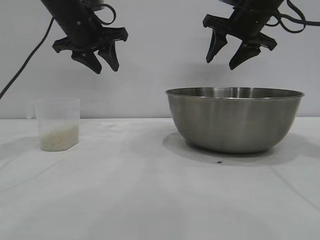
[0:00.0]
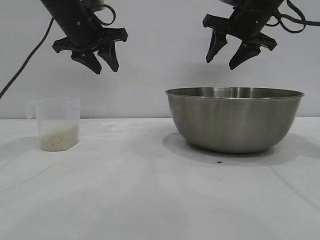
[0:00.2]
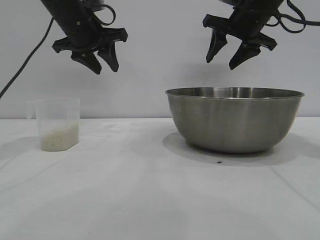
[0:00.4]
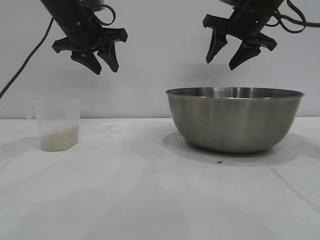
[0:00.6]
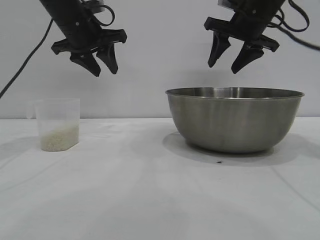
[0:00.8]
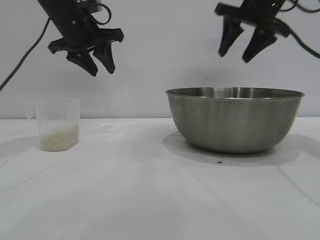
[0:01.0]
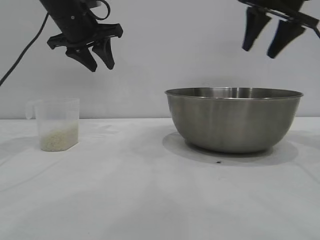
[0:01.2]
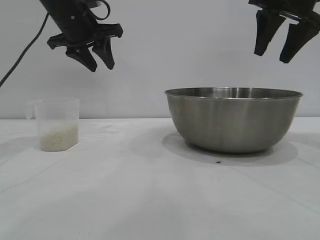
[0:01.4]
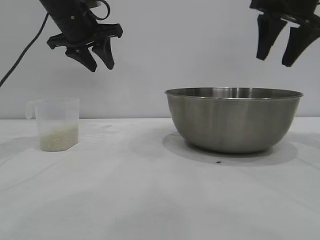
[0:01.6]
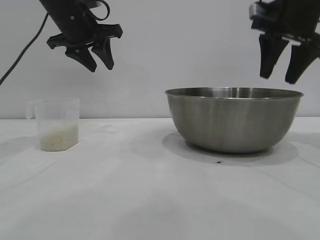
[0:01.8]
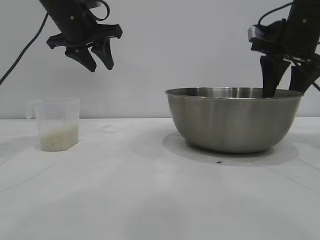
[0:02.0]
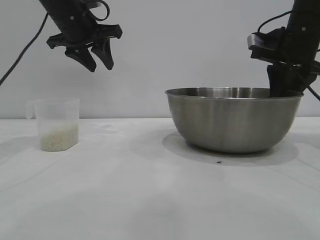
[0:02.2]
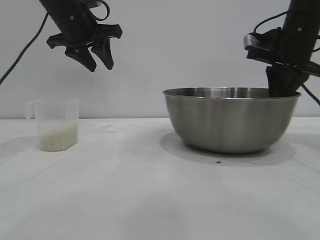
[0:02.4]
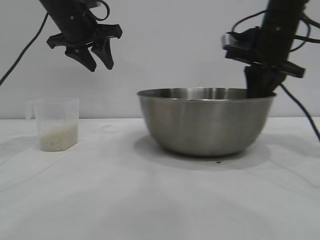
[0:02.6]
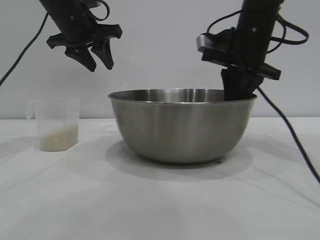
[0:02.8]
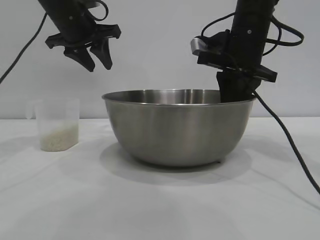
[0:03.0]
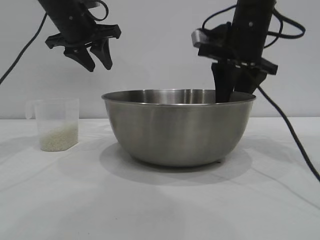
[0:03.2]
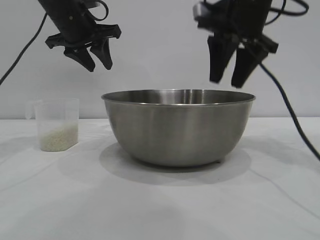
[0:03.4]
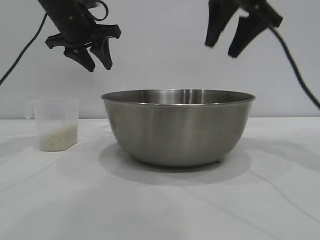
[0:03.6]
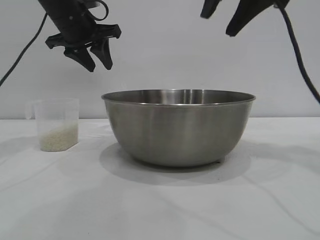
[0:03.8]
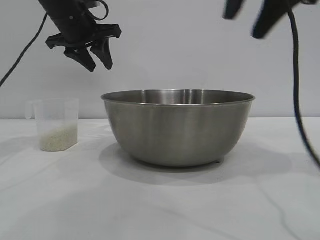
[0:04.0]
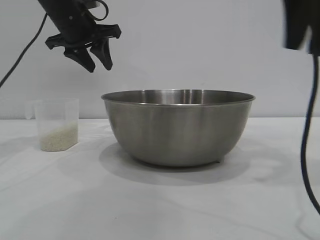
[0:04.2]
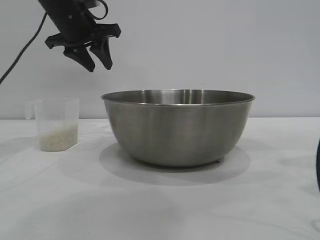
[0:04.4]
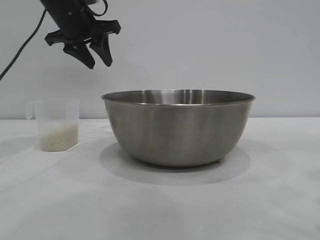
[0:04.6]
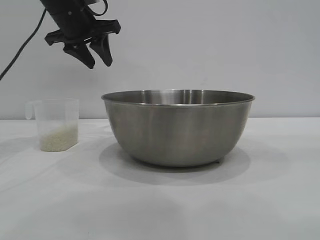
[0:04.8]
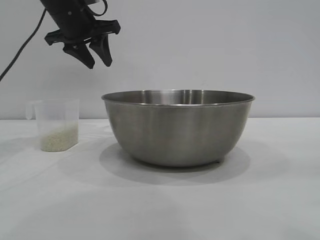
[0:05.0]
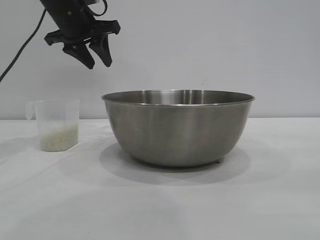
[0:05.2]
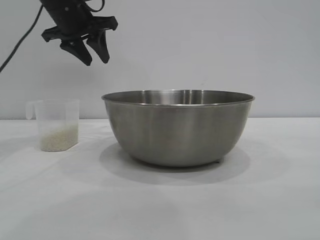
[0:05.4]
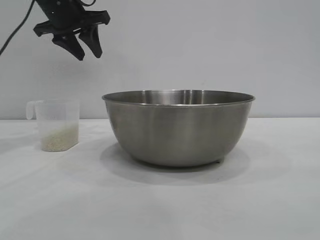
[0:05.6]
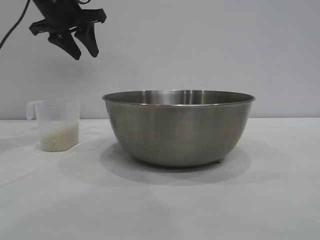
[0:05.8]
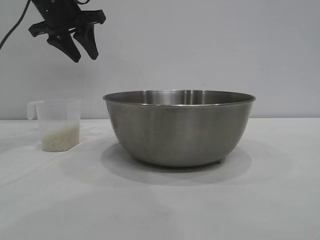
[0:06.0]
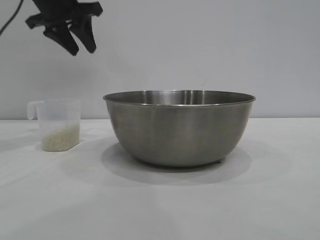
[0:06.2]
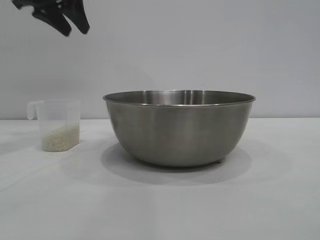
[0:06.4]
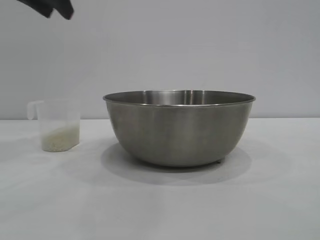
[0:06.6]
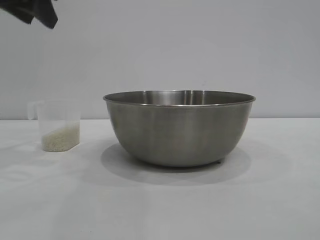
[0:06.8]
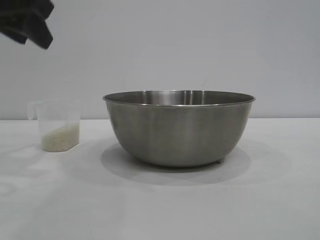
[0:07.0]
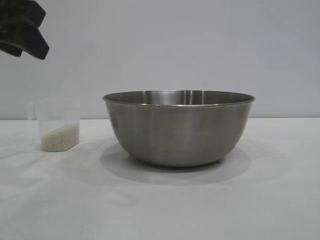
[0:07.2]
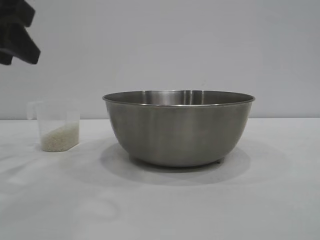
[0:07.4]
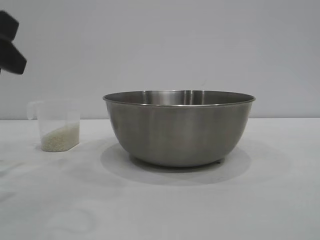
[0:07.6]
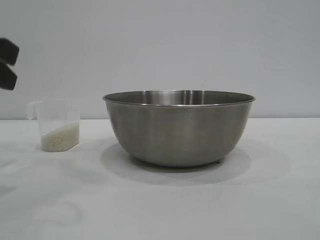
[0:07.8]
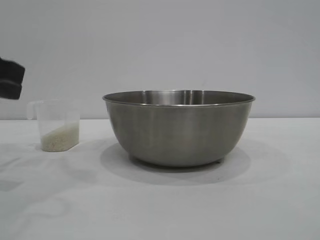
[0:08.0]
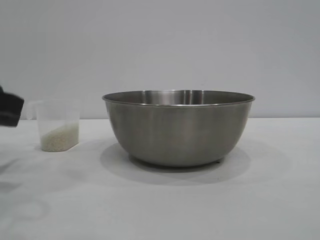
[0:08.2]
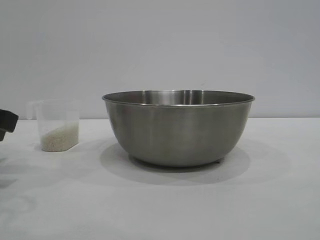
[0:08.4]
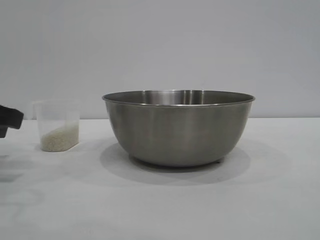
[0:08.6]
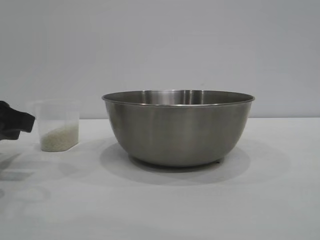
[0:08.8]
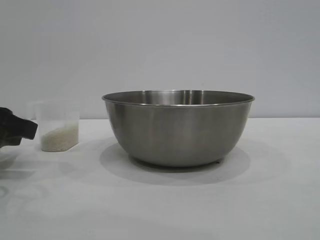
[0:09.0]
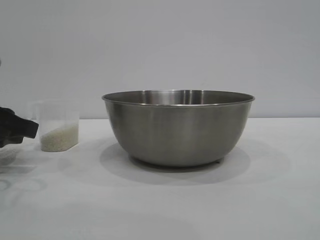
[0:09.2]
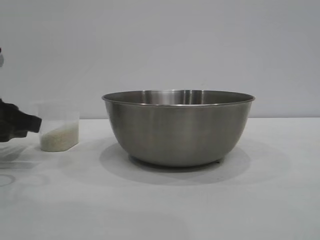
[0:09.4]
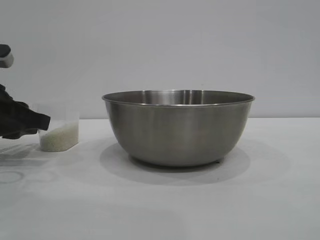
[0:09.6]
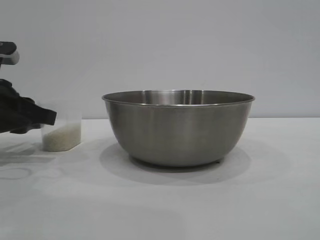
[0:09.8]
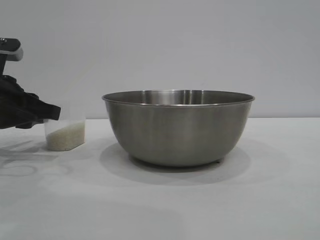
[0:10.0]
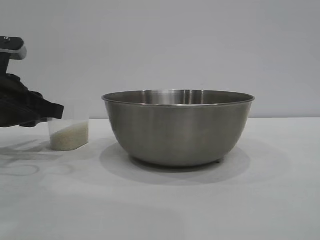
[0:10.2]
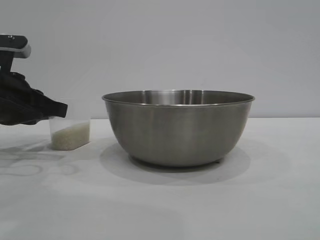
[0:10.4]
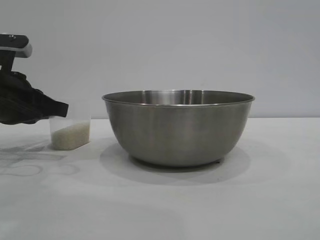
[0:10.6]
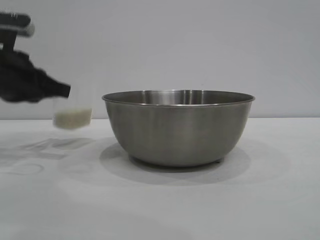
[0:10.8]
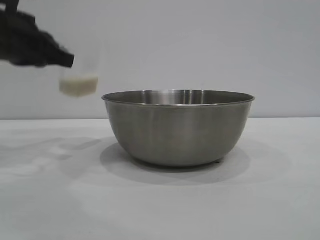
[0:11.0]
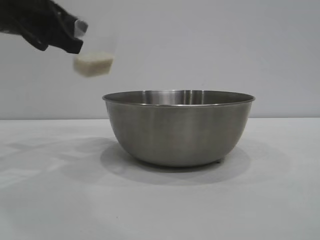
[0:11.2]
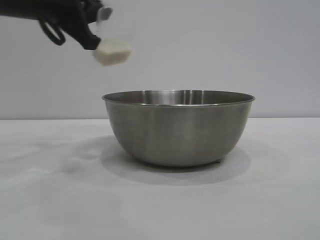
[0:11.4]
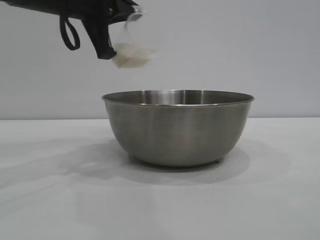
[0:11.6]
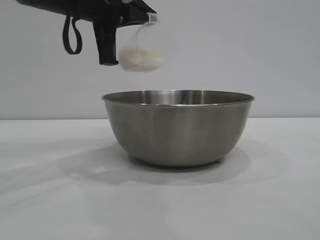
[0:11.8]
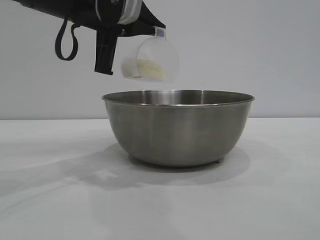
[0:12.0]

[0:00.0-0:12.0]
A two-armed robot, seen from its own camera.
Task of the whole recording: the right gripper grasp the rice container and place it in the center of the table, the left gripper grasp the rice scoop and pour the rice into the rice container.
Step, 0:00.0 to 0:03.4: Move the bowl to the center of view with the right gripper.
Step, 0:03.6 to 0:10.6: Pick up the cup with rice in it with the left gripper.

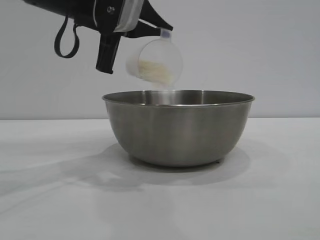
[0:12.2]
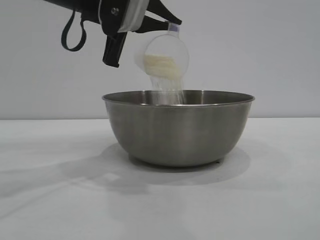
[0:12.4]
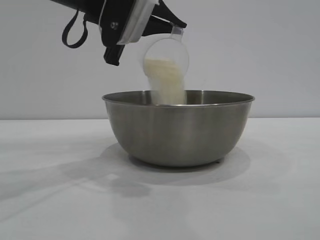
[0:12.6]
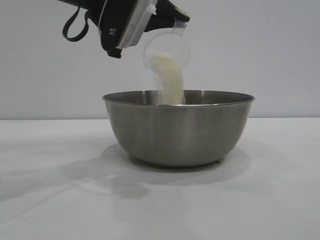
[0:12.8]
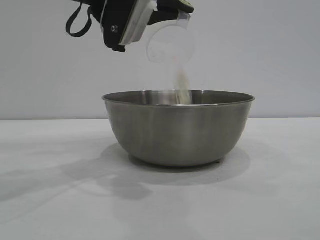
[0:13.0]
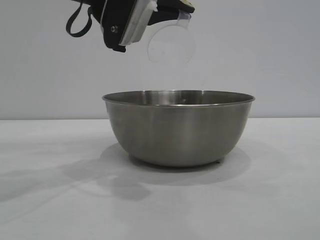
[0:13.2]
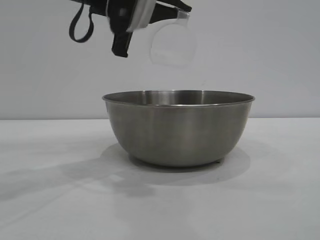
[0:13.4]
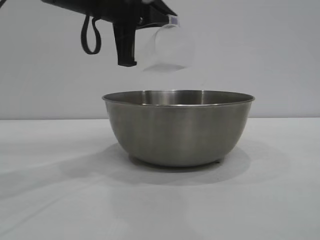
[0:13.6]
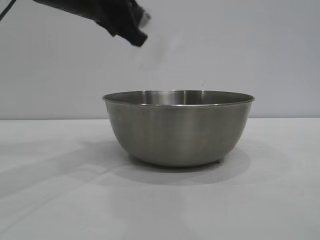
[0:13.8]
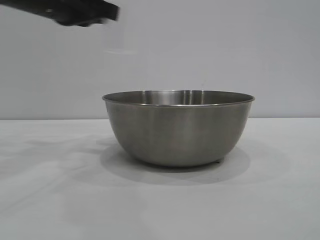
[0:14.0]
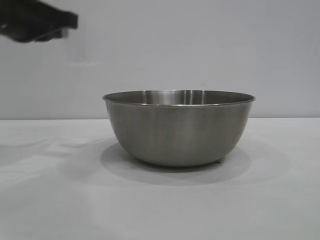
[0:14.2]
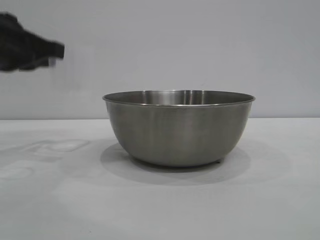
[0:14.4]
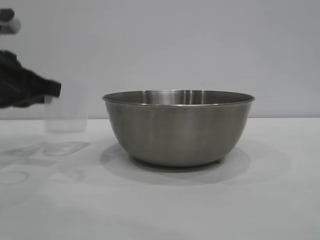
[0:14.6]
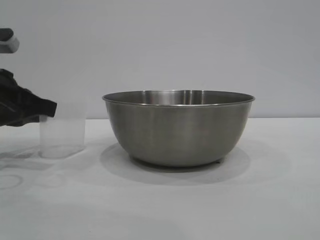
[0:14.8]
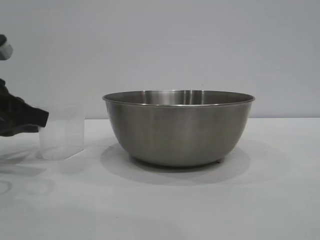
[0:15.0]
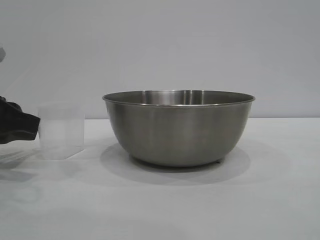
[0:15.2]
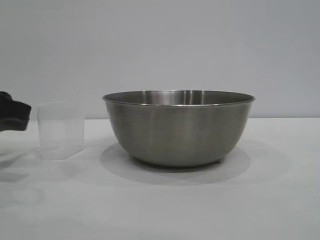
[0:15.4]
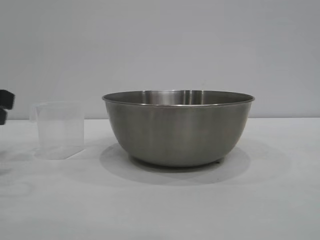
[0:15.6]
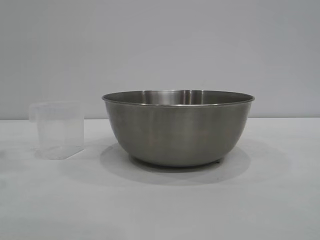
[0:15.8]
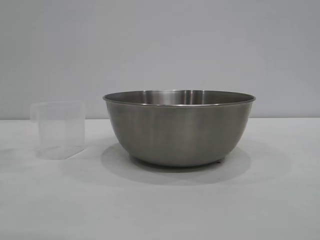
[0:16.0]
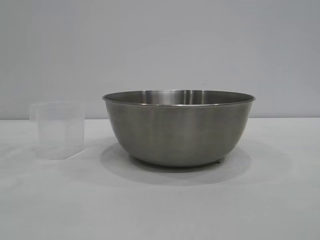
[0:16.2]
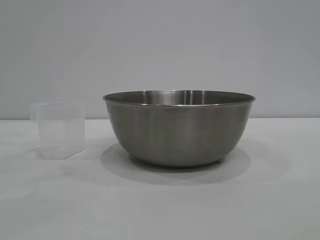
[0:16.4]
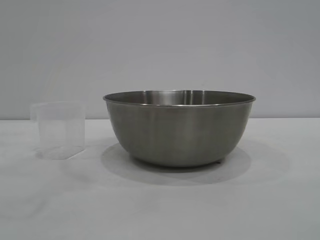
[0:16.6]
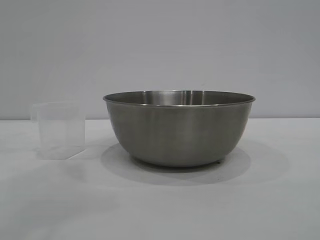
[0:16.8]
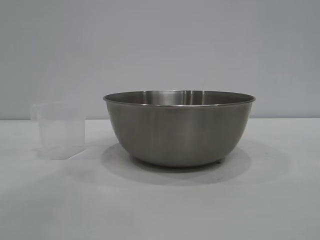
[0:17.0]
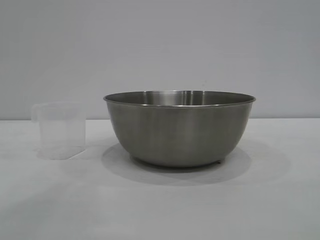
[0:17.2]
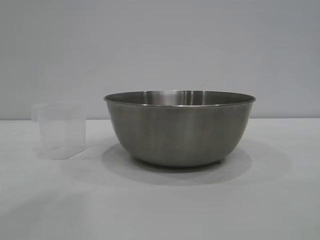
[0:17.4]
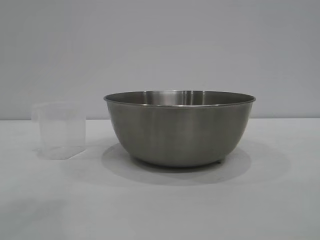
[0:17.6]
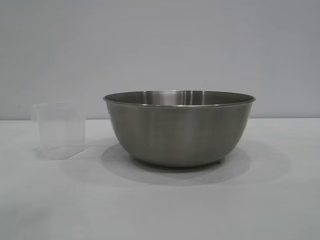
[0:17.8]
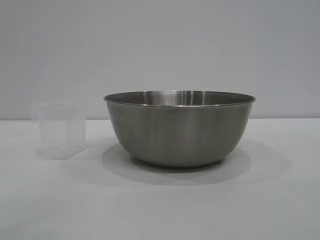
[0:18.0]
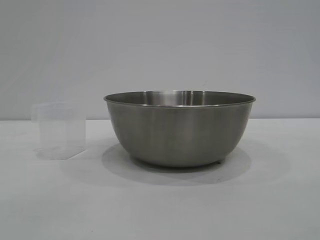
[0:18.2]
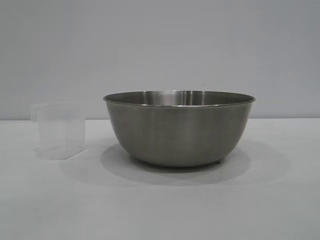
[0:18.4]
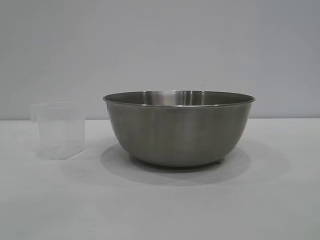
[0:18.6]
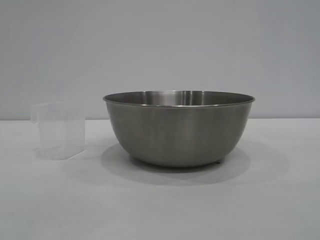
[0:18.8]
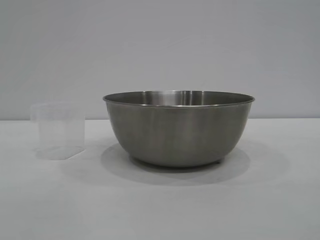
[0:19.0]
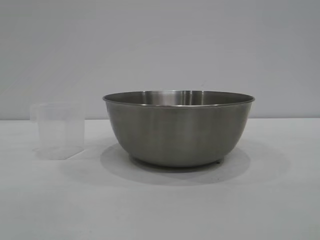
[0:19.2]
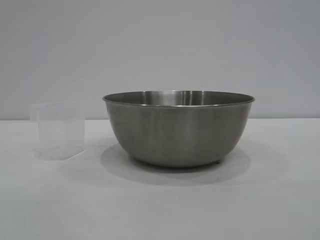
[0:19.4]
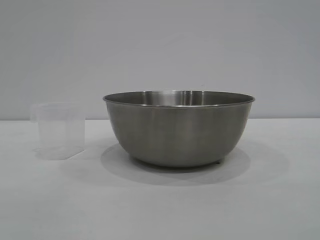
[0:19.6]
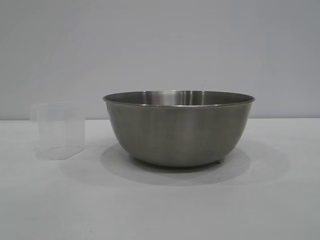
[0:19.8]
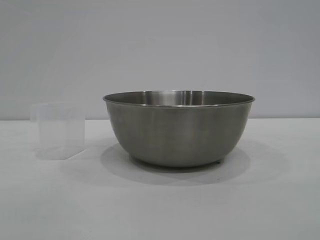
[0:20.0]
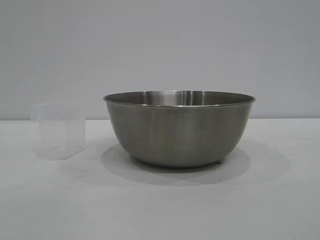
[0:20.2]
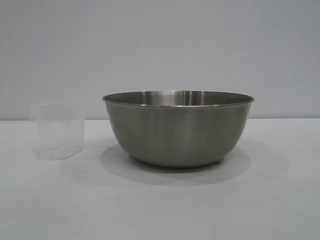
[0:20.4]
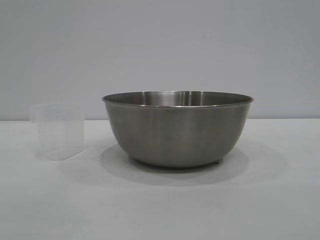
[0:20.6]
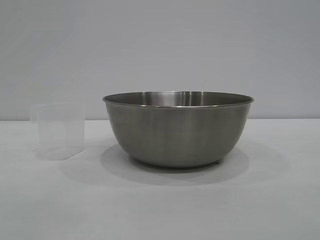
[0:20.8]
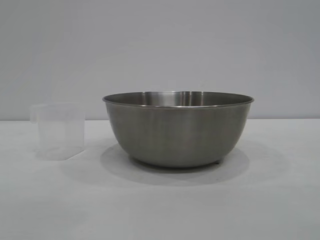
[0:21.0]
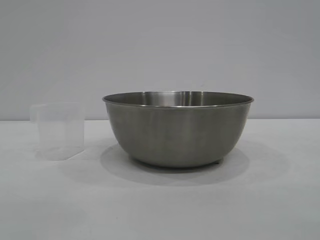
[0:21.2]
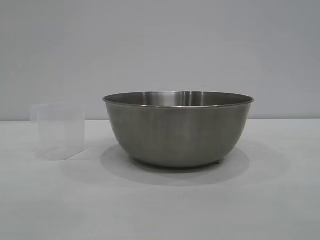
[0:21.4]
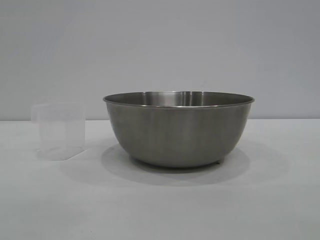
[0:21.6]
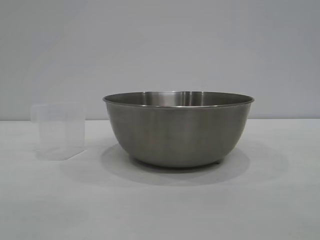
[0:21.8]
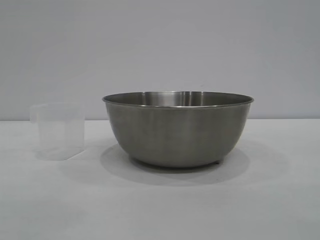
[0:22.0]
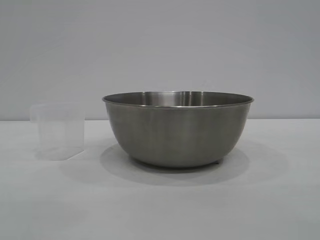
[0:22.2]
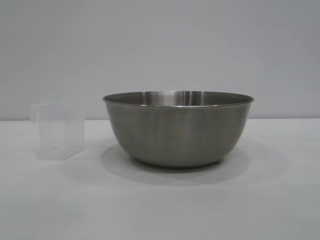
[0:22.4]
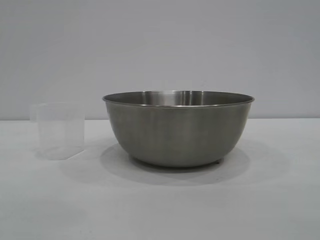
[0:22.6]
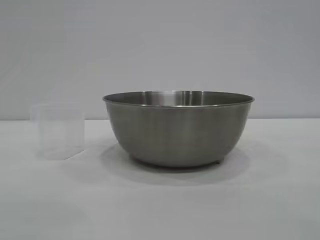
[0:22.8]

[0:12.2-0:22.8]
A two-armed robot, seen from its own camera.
Task of the whole recording: the right gripper grasp the rice container and place it in the center of the table, the left gripper grasp the rice scoop and pour the rice into the rice container.
Step, 0:13.8 to 0:15.4: Place the cup on the table with the left gripper.
